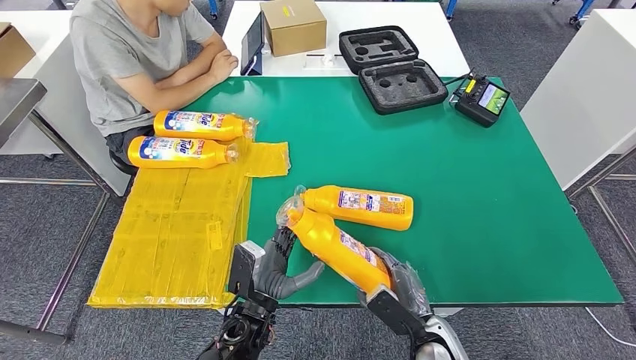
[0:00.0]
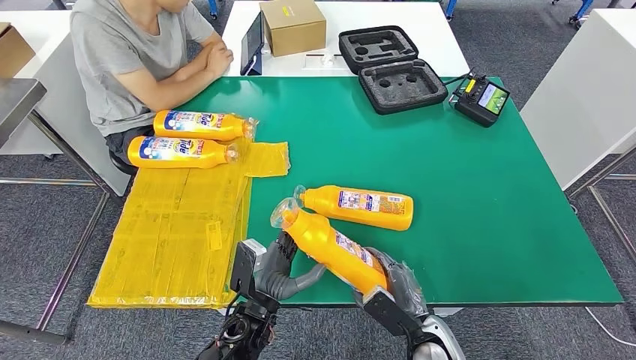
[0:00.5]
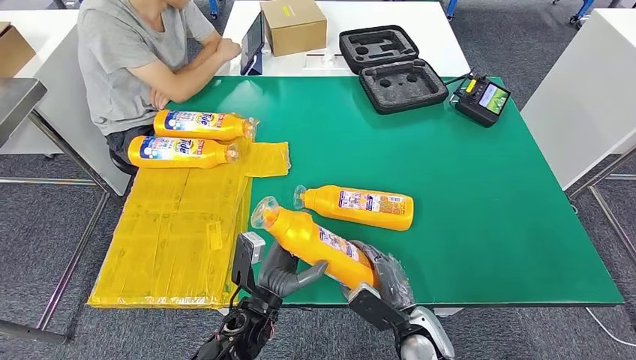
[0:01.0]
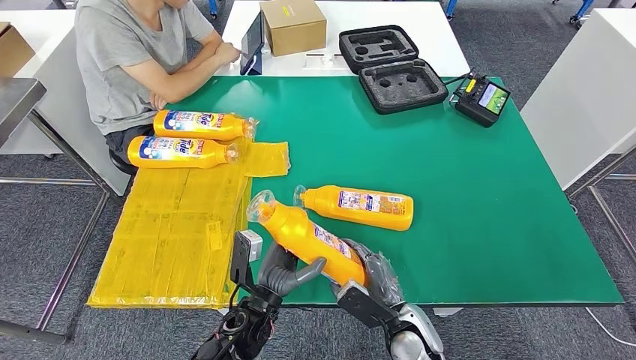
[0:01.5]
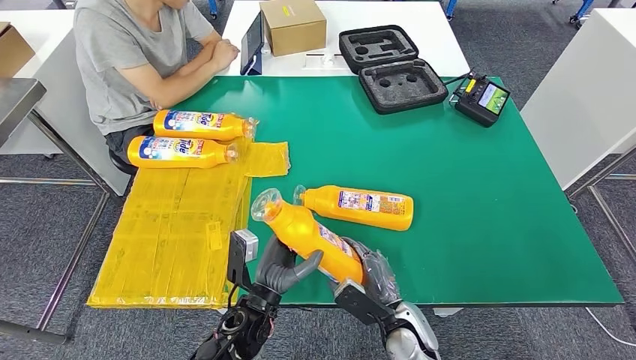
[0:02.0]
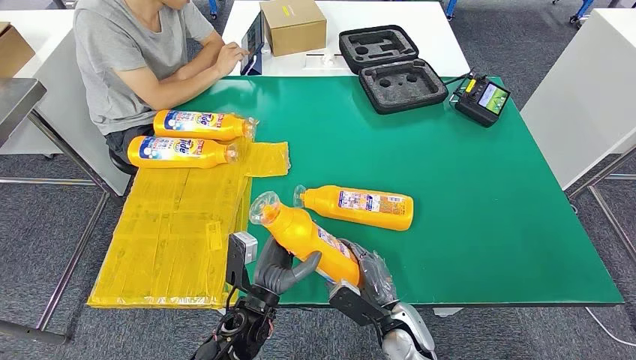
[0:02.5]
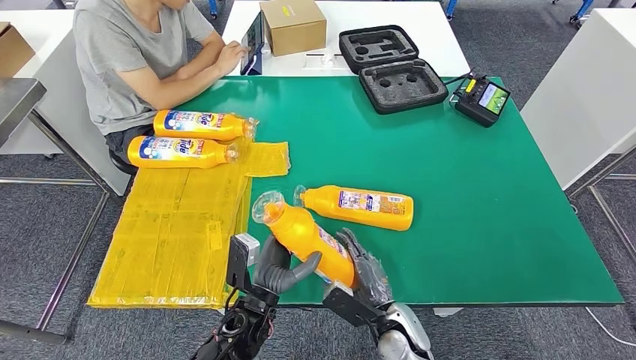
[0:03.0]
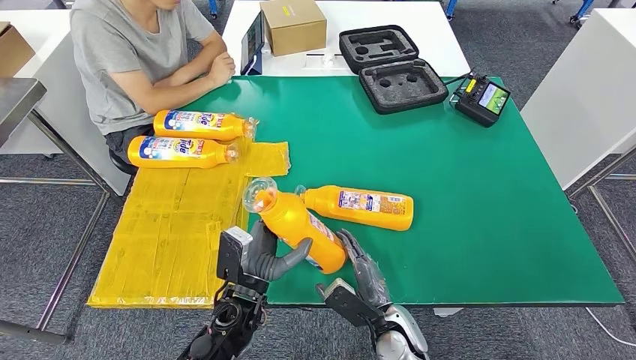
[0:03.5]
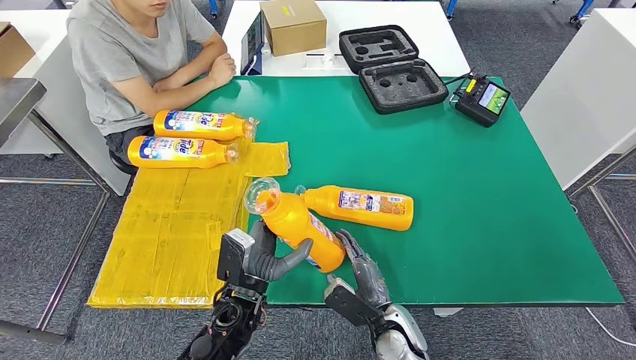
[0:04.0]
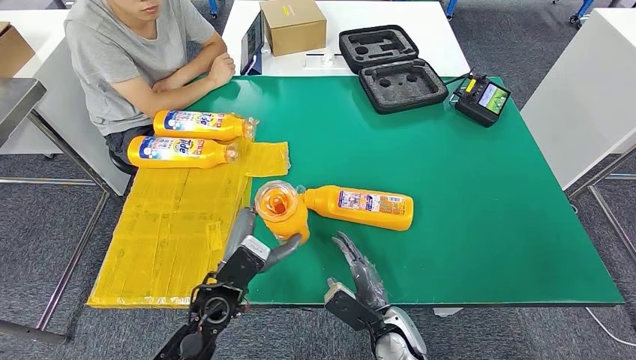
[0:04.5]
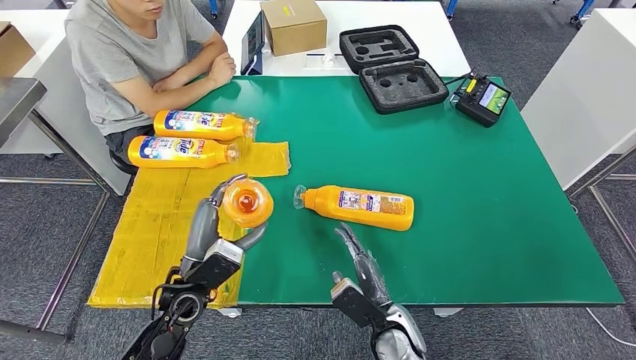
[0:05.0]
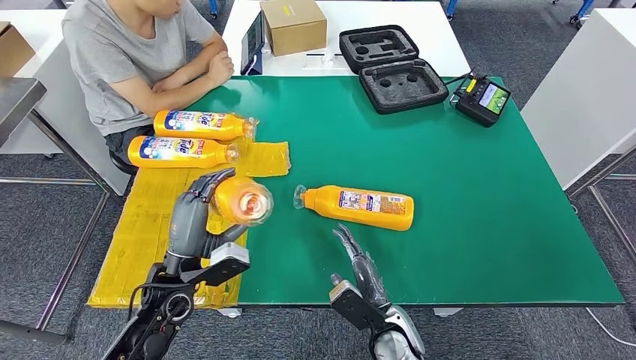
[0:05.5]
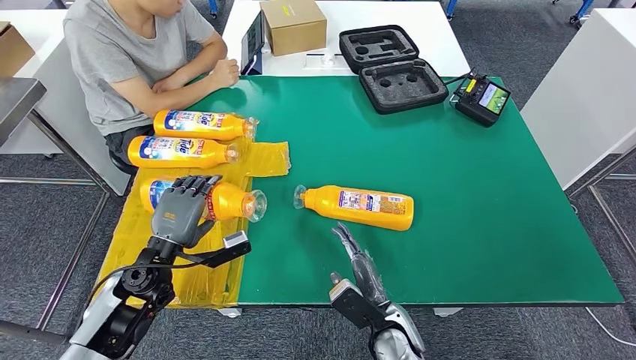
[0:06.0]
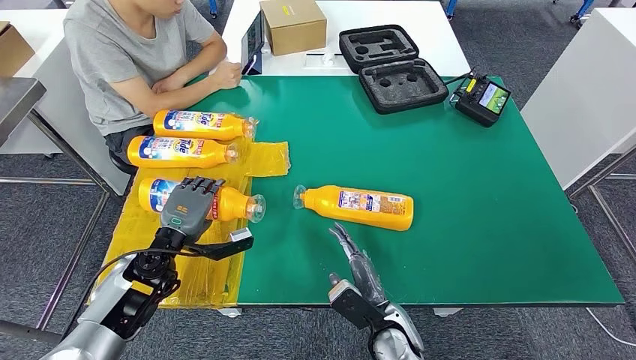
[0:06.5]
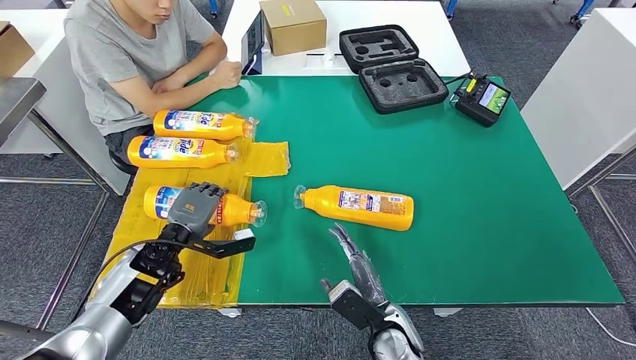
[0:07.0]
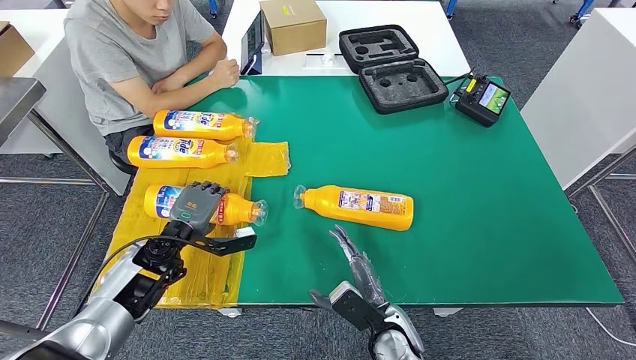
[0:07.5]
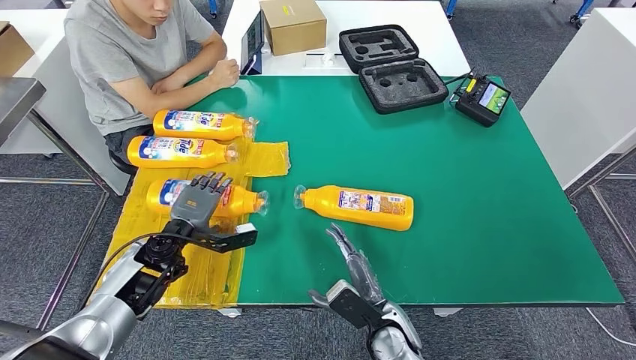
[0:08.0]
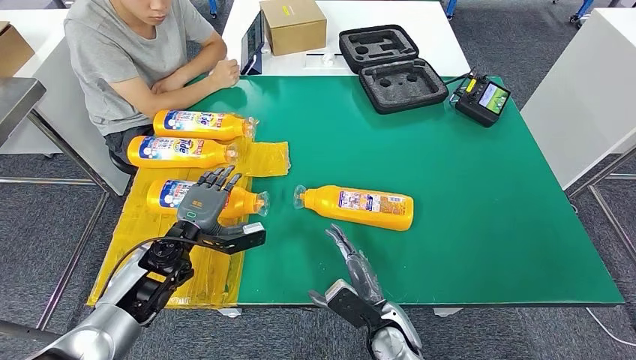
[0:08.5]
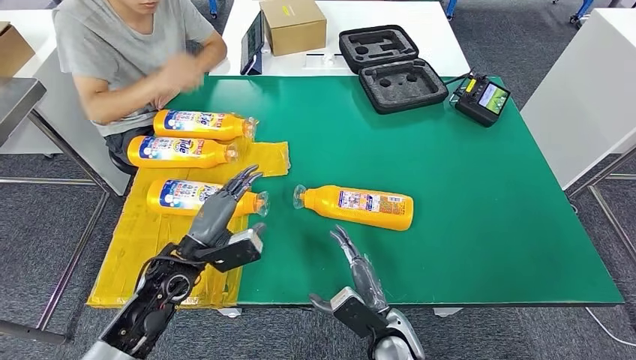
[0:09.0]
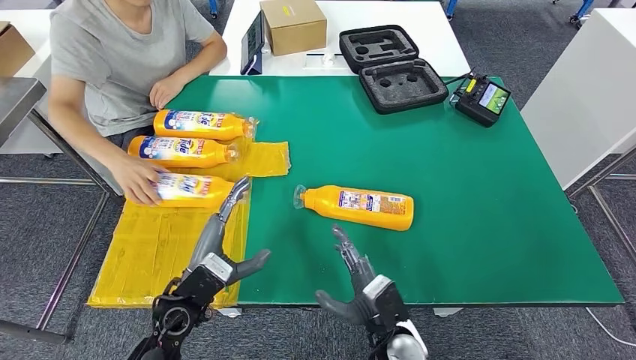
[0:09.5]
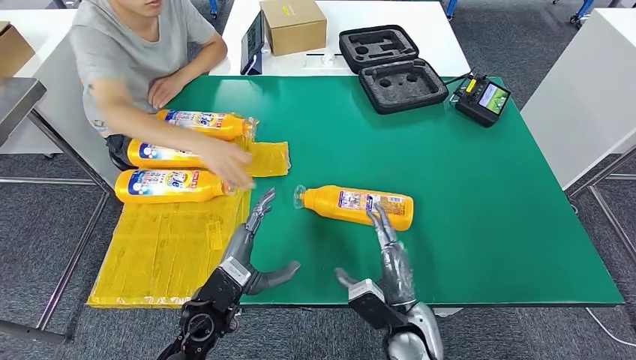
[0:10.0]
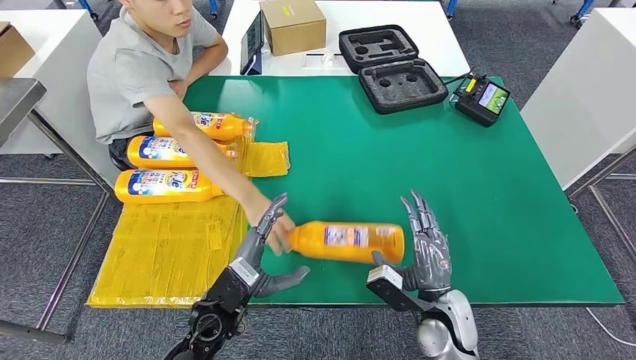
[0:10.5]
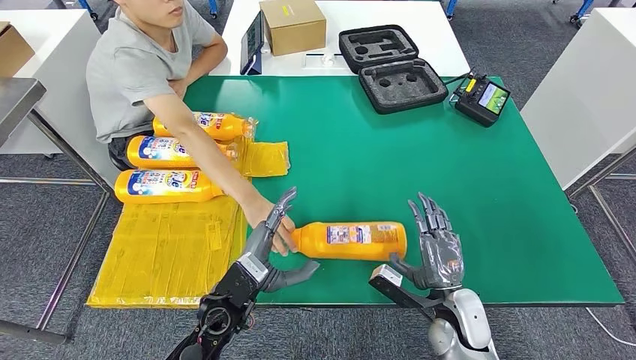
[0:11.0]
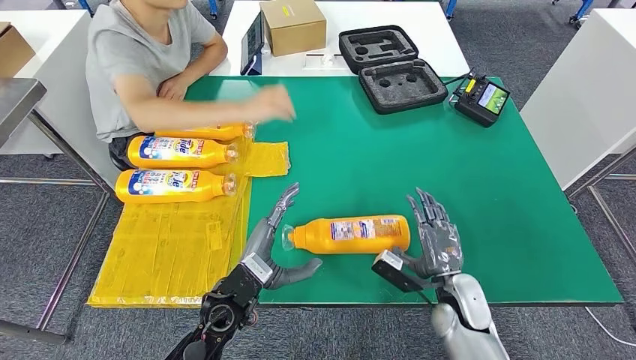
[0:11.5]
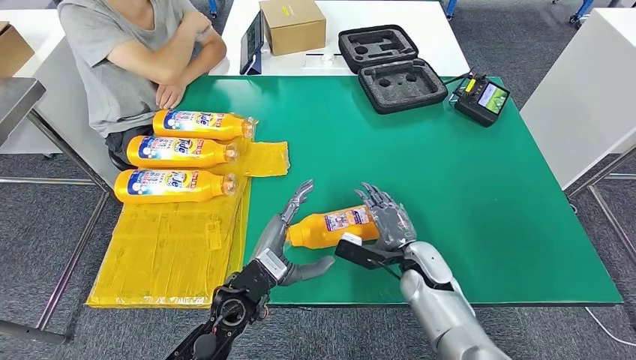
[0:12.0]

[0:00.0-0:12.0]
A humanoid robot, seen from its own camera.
Step, 0:00.0 to 0:04.0: Pick up the fast-moving consumer goods bottle from the table.
Step, 0:04.5 to 0:07.5: Flip the fast-moving consumer goods bottle to the front side.
0:00.0 to 0:02.0: The right hand moves to the left, approximately 5 cm.
0:02.0 to 0:04.0: The hands stay close to where they were, moving slightly.
0:04.0 to 0:06.0: The left hand heads to the left, covering roughly 15 cm.
0:06.0 to 0:08.0: The left hand moves forward, some 5 cm.
0:08.0 to 0:10.0: The right hand moves about 5 cm. Meanwhile the left hand moves backward and to the right, about 15 cm.
0:10.0 to 0:12.0: The right hand travels forward by about 10 cm, while the left hand shifts approximately 5 cm to the right.

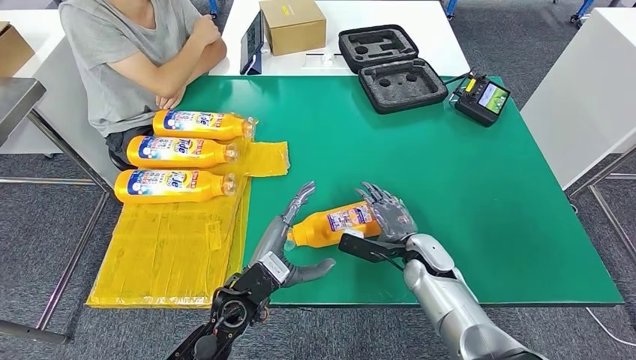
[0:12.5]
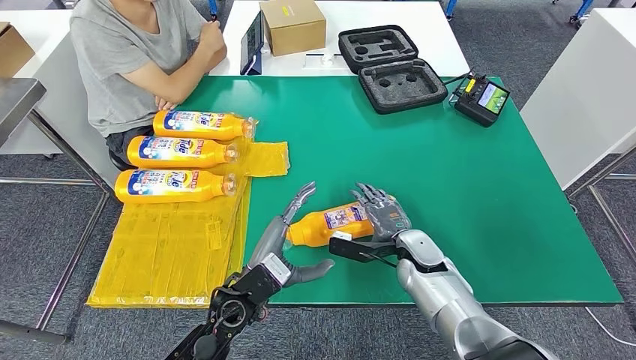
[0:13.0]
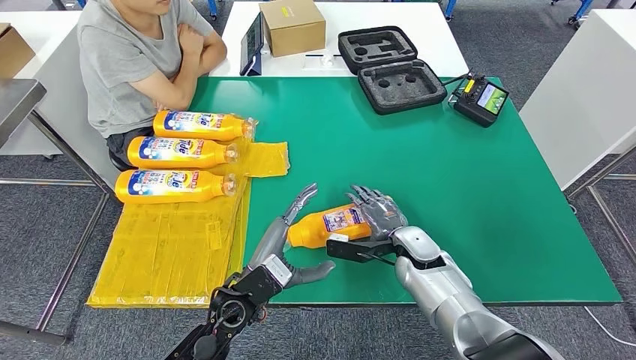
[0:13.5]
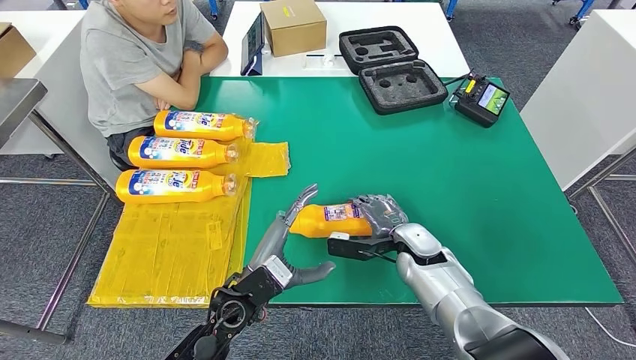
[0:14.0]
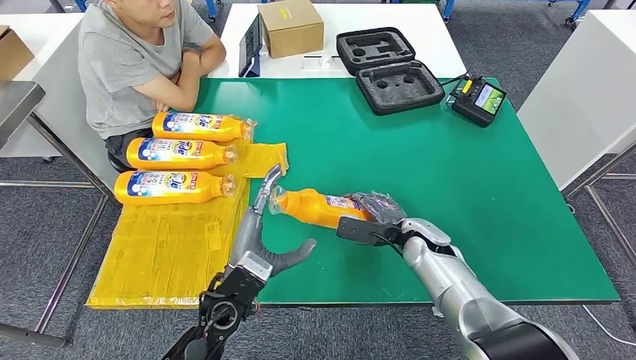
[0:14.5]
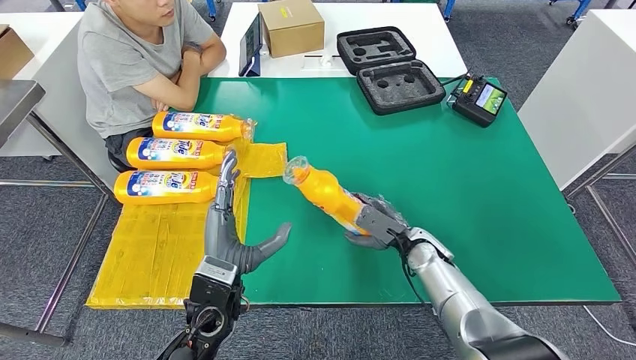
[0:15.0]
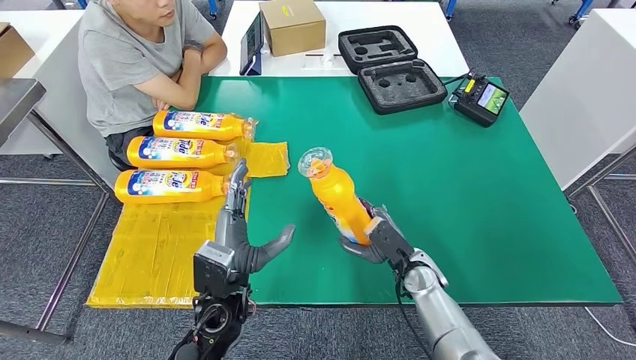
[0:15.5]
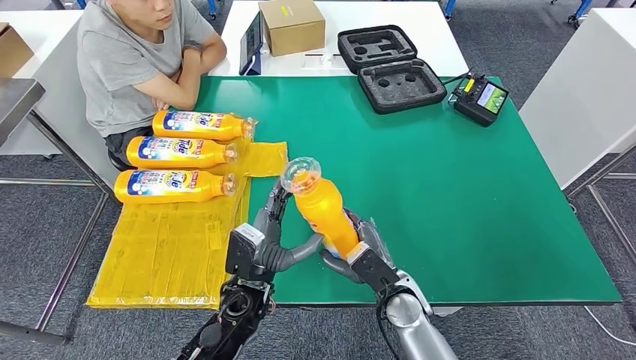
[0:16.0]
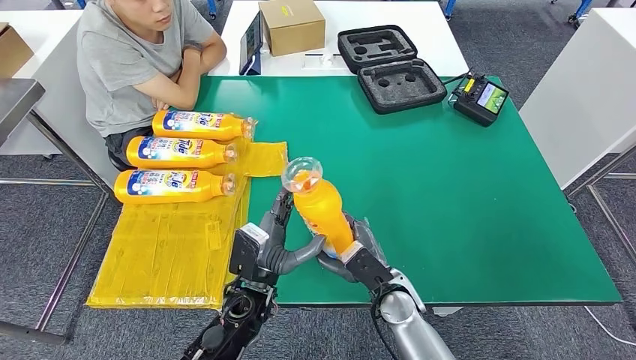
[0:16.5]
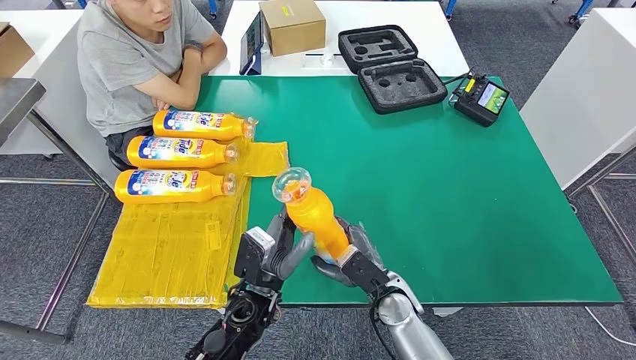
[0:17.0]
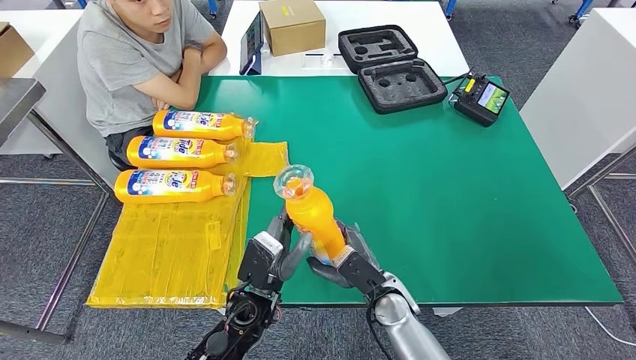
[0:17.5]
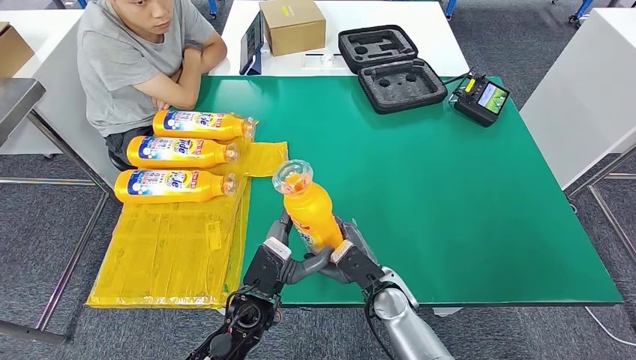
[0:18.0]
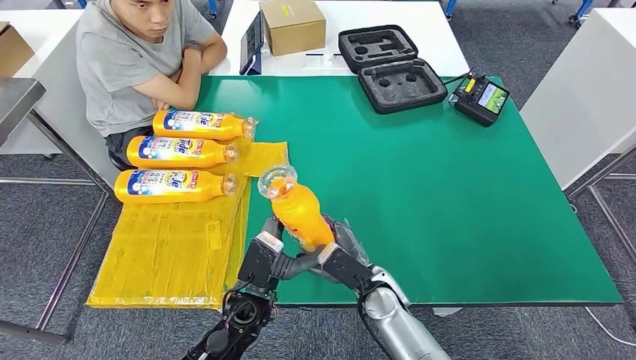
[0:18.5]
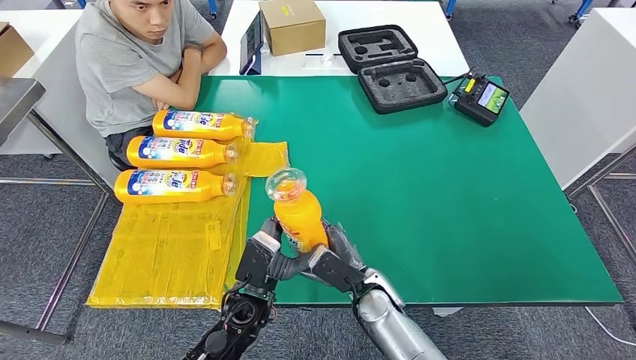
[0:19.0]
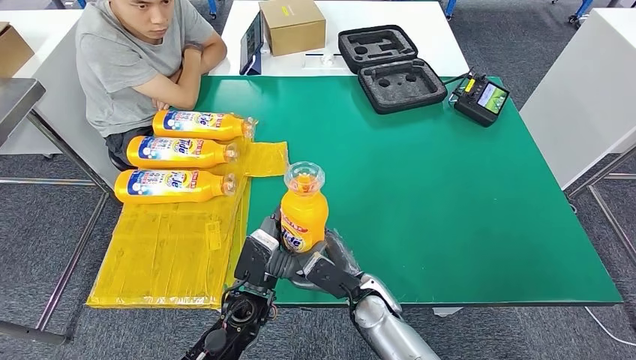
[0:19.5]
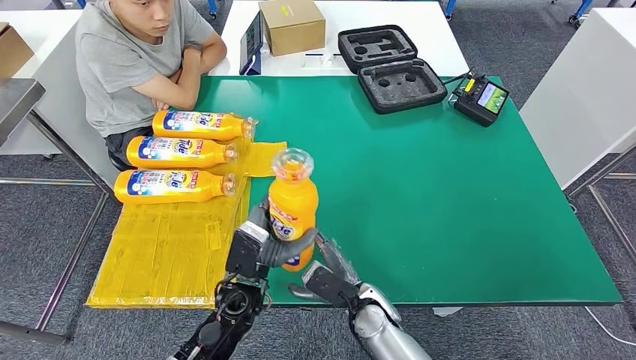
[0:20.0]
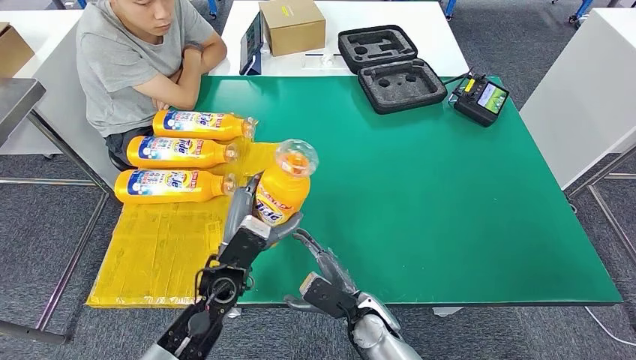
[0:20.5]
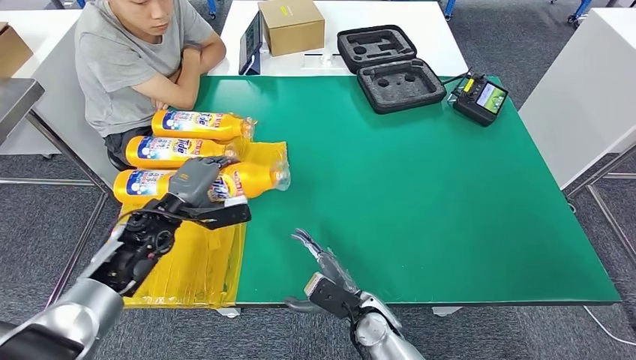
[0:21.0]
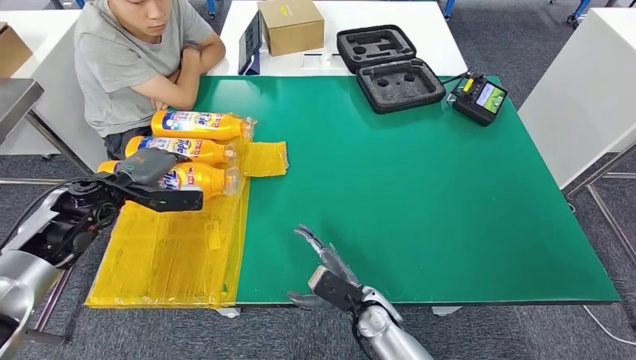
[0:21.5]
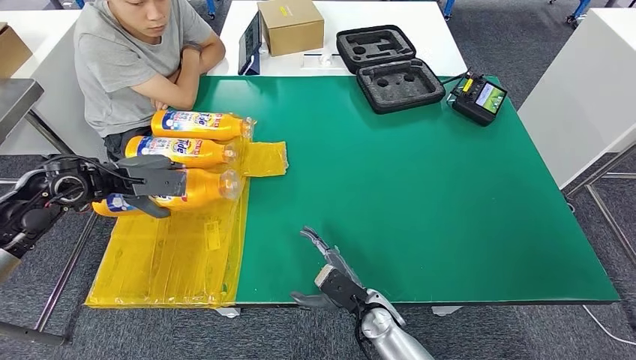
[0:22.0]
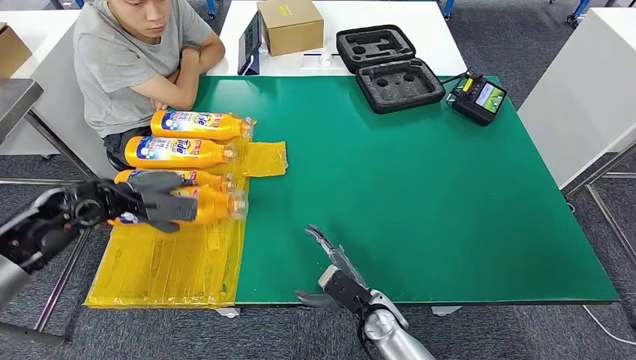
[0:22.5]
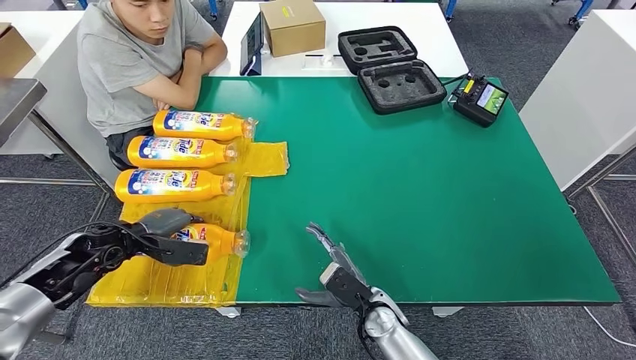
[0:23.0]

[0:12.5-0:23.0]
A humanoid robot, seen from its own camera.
Step, 0:12.5 to 0:17.0: Pick up the fast-moving consumer goods bottle from the table.
0:14.5 to 0:16.5: The right hand moves backward, about 10 cm.
0:16.5 to 0:19.0: The hands make only small movements.
0:19.0 to 0:21.0: The left hand heads to the left and forward, covering about 20 cm.
0:21.0 to 0:23.0: The left hand shifts roughly 10 cm to the left, and travels upward and back again, roughly 10 cm each way.
